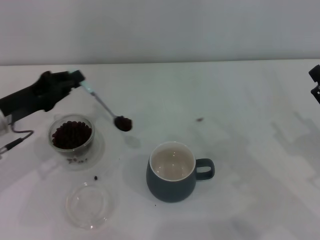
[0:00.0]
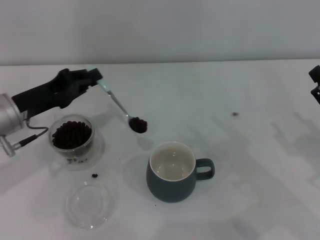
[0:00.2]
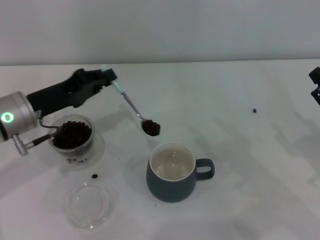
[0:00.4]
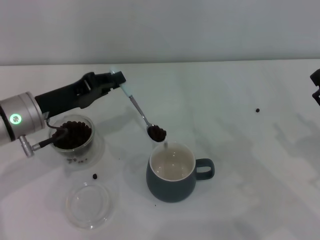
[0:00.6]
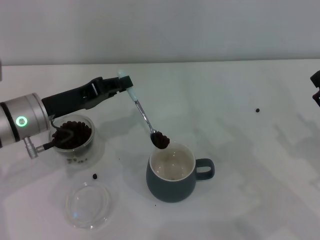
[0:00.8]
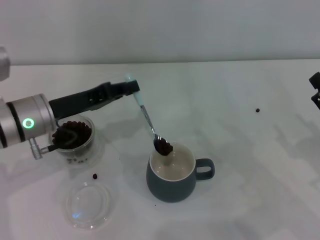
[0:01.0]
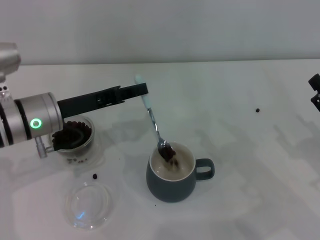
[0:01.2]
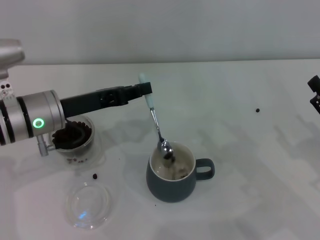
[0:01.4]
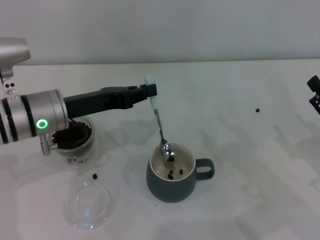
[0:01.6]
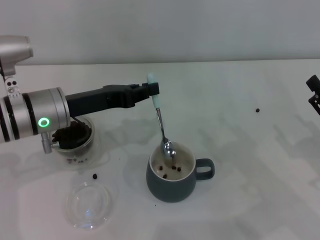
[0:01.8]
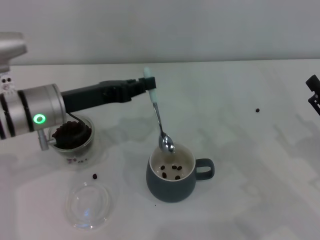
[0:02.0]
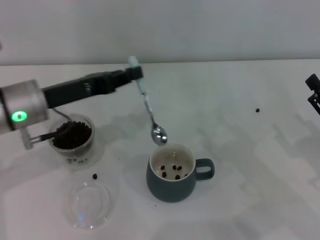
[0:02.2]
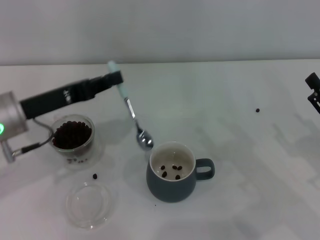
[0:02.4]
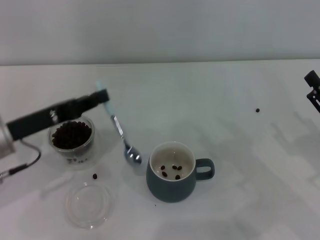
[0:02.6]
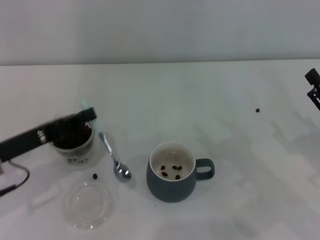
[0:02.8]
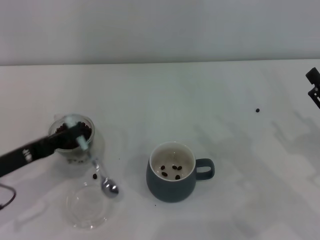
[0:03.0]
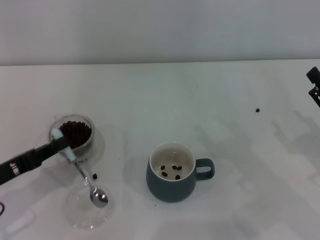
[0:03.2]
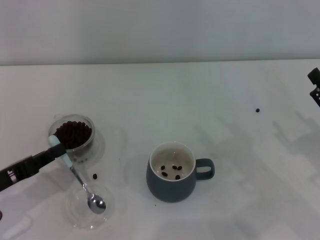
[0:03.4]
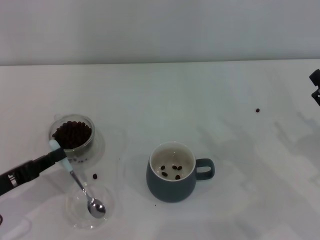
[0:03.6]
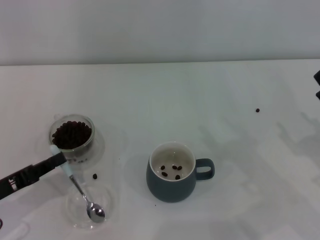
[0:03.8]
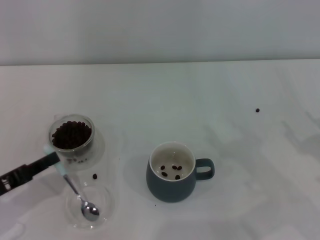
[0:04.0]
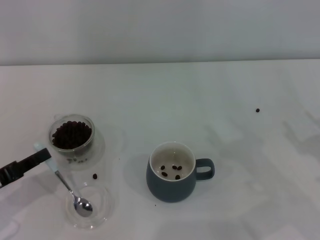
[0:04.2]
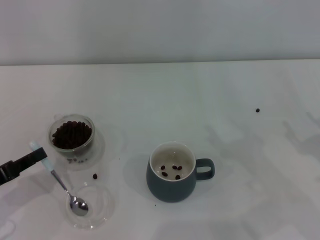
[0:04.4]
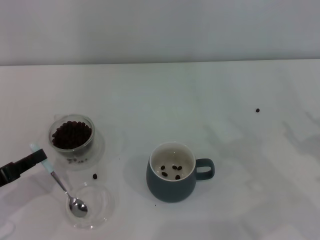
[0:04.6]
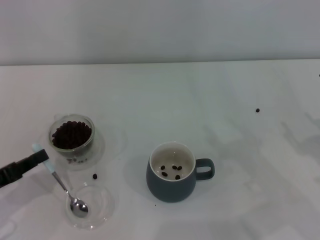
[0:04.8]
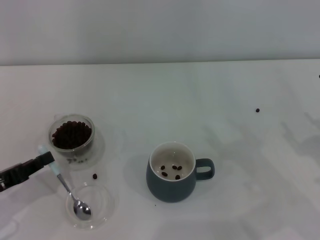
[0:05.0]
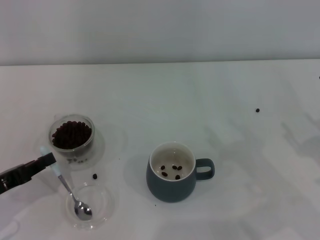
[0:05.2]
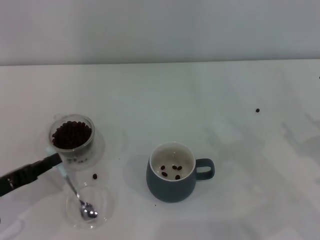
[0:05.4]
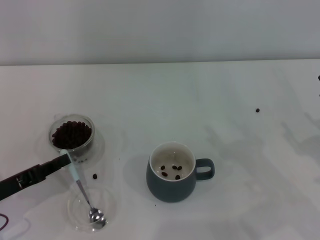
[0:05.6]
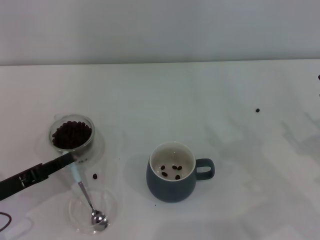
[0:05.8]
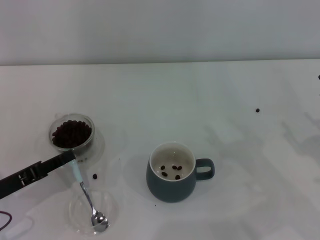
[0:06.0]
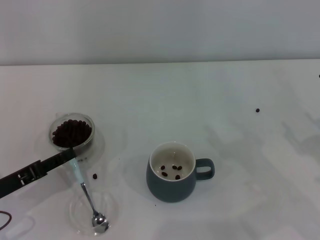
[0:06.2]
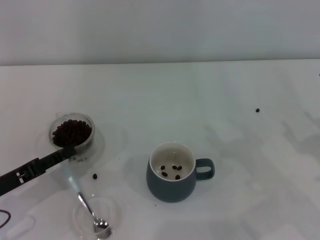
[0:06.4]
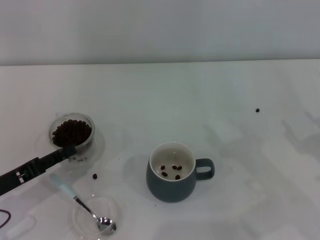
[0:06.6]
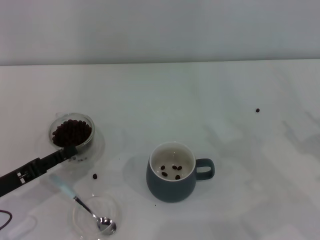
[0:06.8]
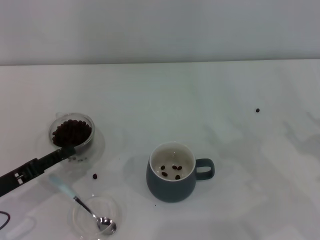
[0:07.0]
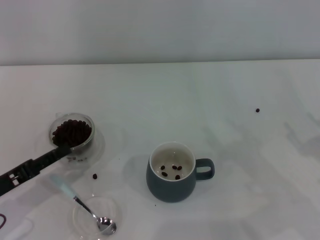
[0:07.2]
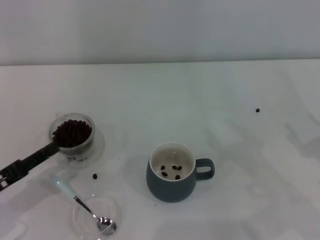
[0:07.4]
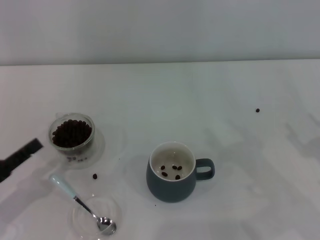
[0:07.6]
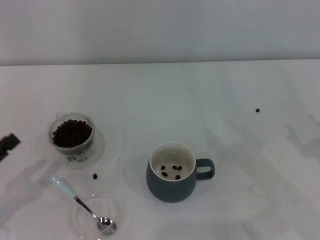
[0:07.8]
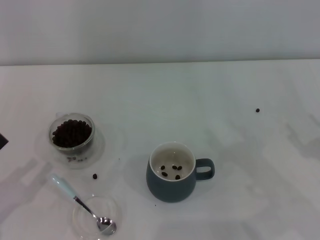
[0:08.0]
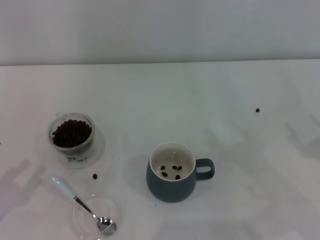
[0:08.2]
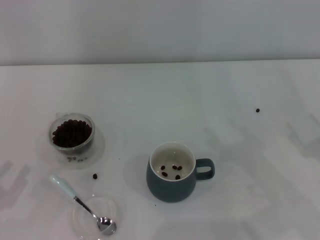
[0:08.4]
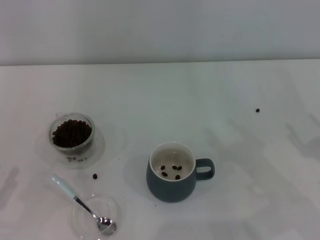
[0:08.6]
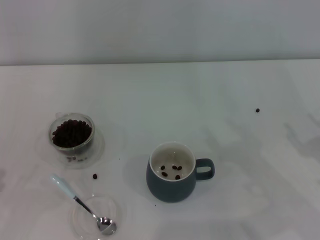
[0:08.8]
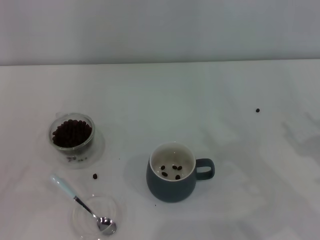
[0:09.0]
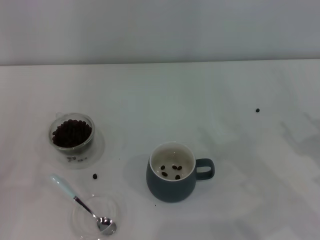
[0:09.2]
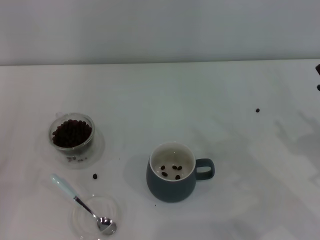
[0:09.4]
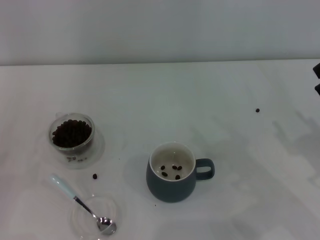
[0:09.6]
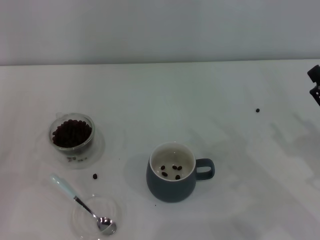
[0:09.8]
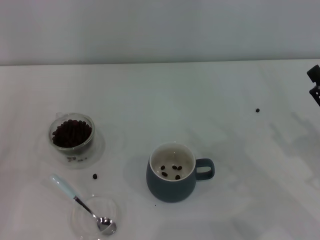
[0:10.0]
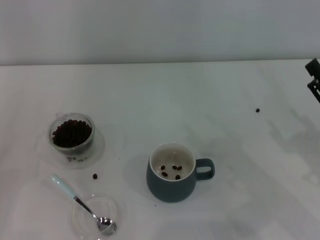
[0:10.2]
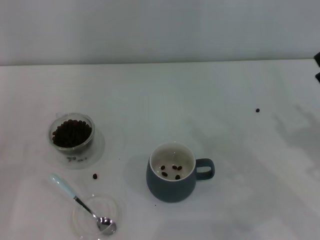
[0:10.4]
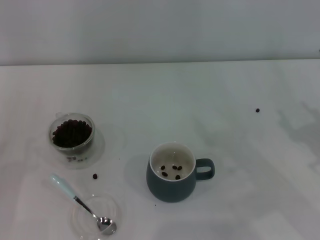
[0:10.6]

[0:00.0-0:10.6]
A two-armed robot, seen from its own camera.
Task of the whole recording: Use a blue spoon to take out the coffee beans from the glass and pour them into the gray cup.
0:00.0 to 0:01.6: The left gripper shifts some 10 cm to the right.
0:01.6 to 0:03.0: The left gripper goes about 15 cm to the left and backward.
0:03.0 to 0:04.6: The left gripper shifts by approximately 5 cm.
0:04.6 to 0:06.0: The grippers make only small movements.
0:06.0 to 0:07.6: The left gripper moves roughly 5 cm, and opens up.
0:07.6 to 0:09.0: The left gripper moves backward and to the left, some 10 cm.
